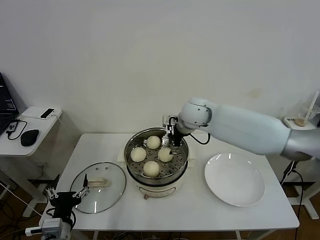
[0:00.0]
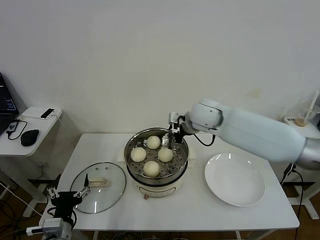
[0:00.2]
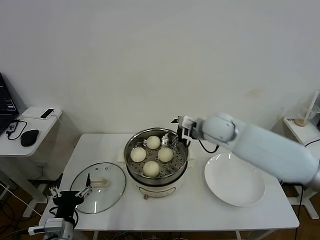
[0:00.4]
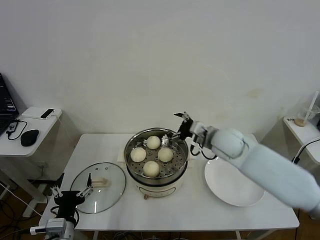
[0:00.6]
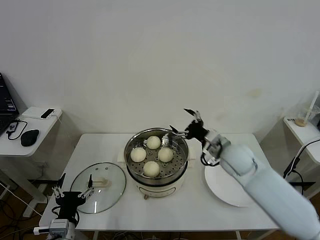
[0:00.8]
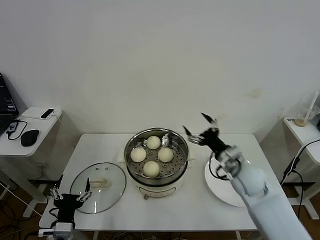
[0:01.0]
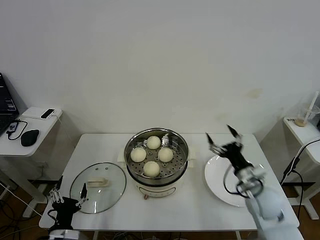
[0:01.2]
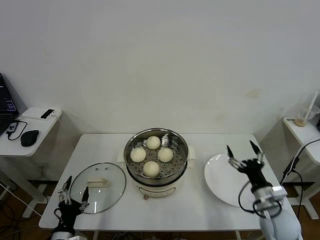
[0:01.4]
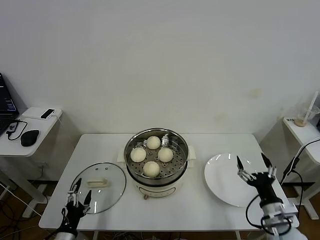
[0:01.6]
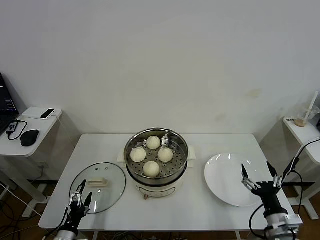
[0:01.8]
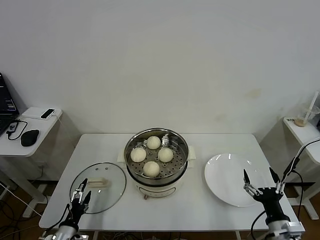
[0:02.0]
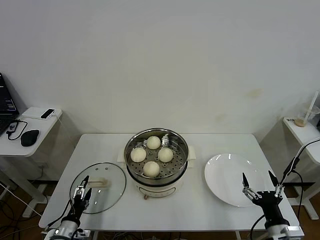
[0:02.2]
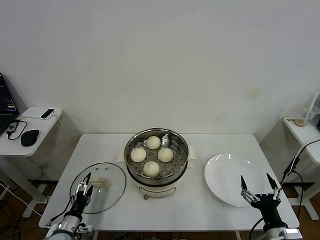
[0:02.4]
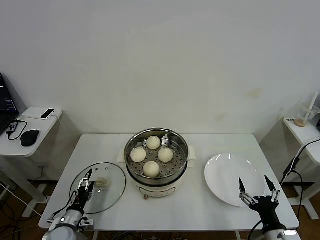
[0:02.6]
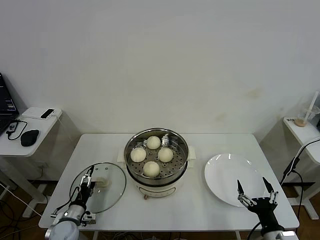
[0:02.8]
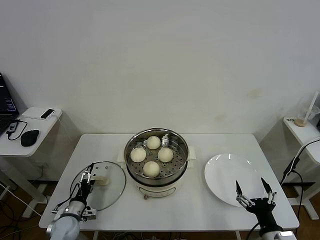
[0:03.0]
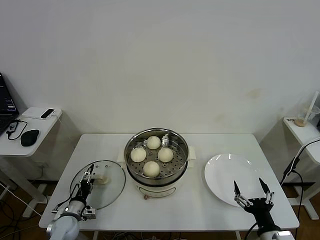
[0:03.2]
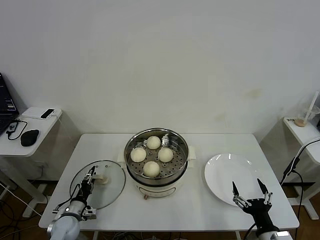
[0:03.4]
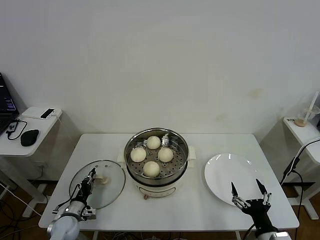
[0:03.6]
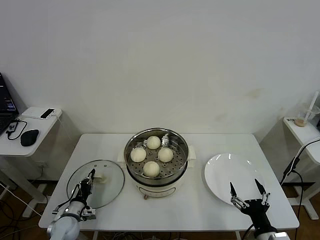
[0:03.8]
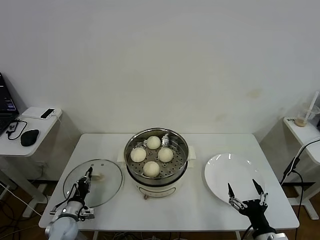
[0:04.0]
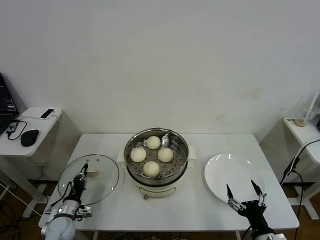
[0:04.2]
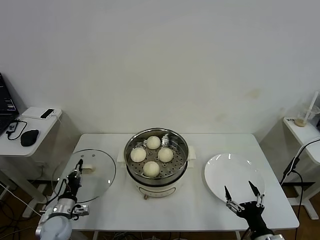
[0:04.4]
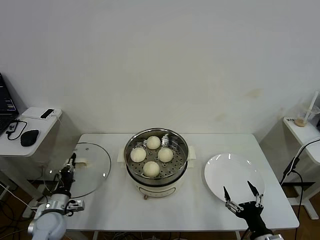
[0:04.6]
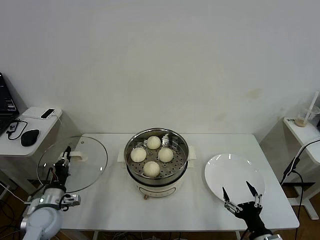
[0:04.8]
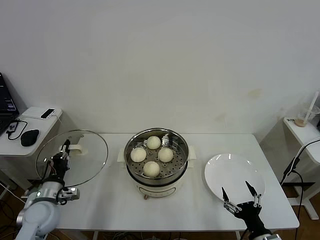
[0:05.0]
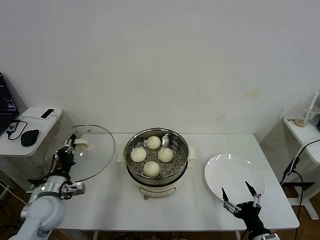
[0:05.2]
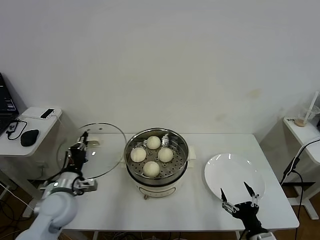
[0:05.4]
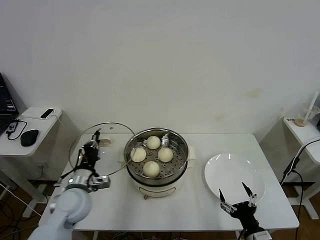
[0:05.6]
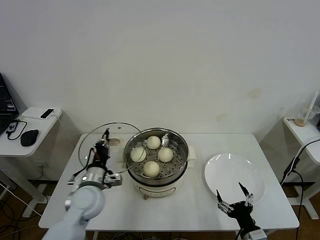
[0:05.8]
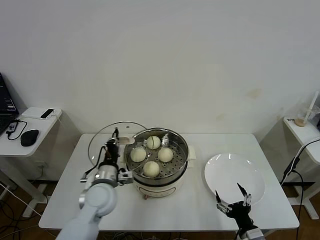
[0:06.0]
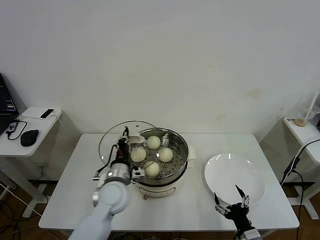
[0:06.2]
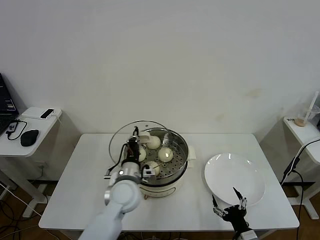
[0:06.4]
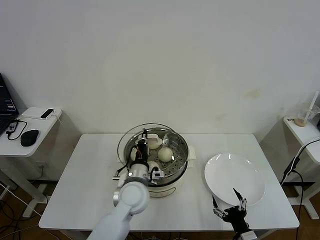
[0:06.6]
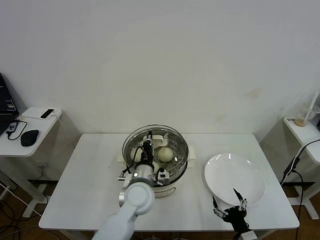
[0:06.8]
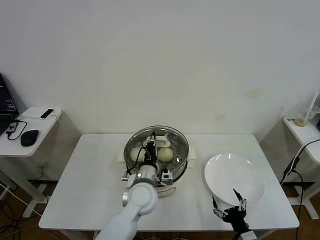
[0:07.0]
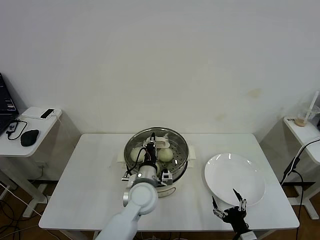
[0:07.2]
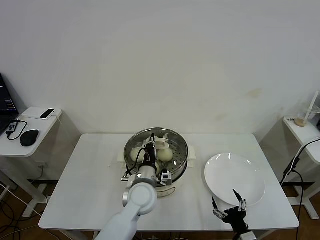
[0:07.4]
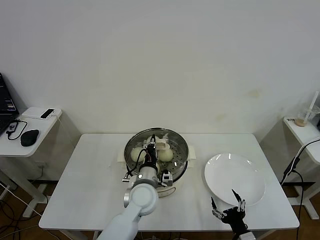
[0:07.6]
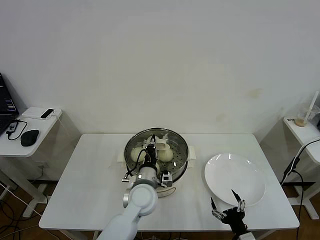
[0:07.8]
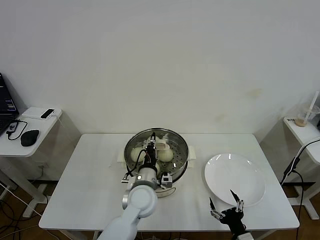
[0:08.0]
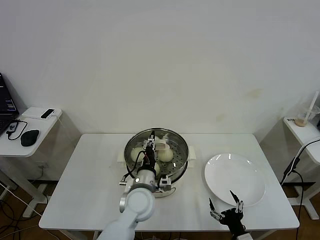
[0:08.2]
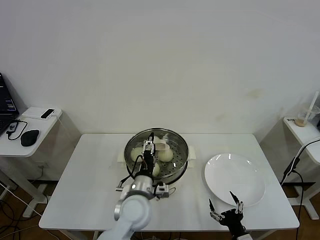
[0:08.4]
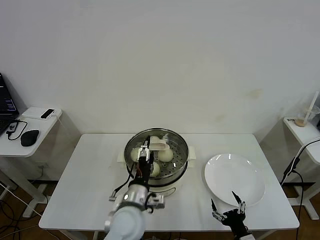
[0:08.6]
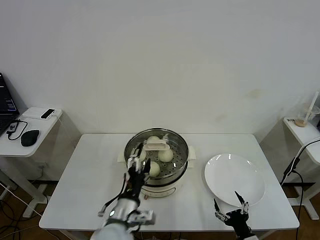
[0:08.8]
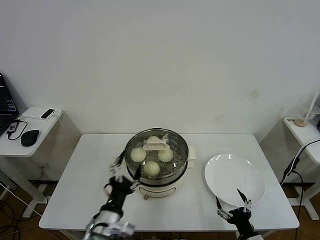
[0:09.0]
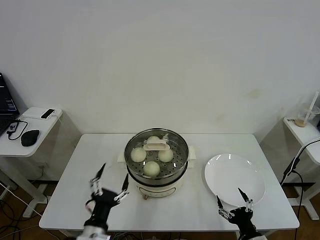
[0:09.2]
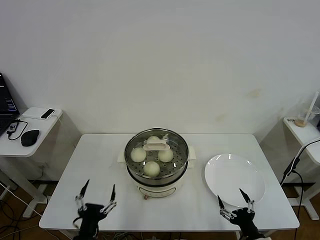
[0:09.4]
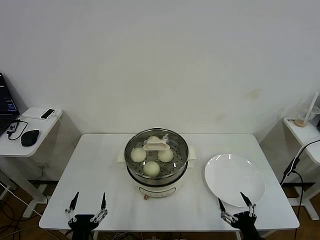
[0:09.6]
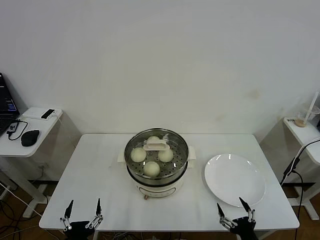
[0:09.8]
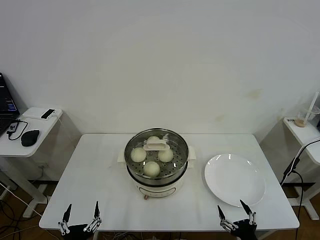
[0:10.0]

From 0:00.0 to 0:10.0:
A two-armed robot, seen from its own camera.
Task of the whole recording: take steamed baozi put them in steamer then cover it.
Step, from 0:00.0 to 0:03.8: Grasp the pot lid with left gripper.
Step, from 0:04.0 to 0:08.6: Place the pot lid on the steamer with left gripper.
From 0:00.0 to 0:01.4: The left gripper goes approximately 10 cm downward, while the right gripper moves backward, to the right and downward, about 40 cm.
From 0:01.4 to 0:02.8: The left gripper goes about 15 cm forward and downward, while the right gripper is displaced backward by roughly 10 cm.
From 0:02.8 to 0:04.2: The left gripper closes up.
From 0:04.2 to 0:05.8: The left gripper moves upward and to the right, approximately 20 cm.
From 0:05.8 to 0:07.2: The left gripper is displaced to the right by about 20 cm.
From 0:07.2 to 0:08.6: The left gripper goes approximately 5 cm backward, and opens its fingers.
From 0:08.6 to 0:10.0: The left gripper heads backward and to the left, covering some 25 cm; the right gripper ends up roughly 5 cm from where it was.
